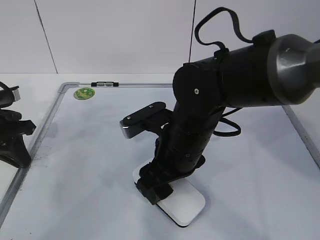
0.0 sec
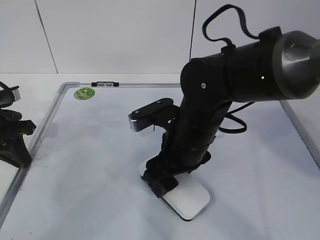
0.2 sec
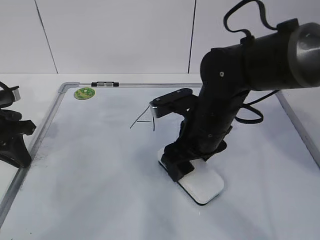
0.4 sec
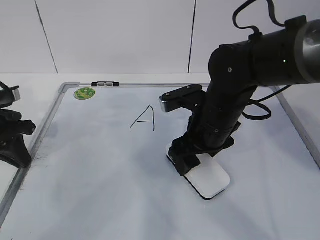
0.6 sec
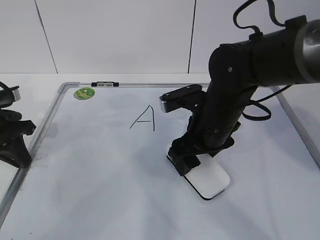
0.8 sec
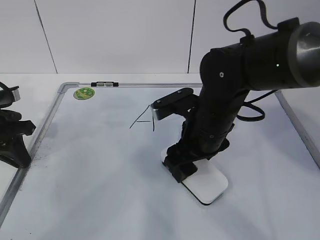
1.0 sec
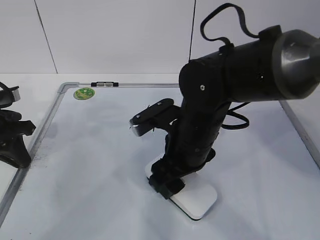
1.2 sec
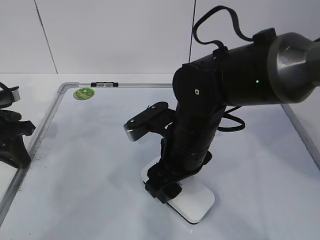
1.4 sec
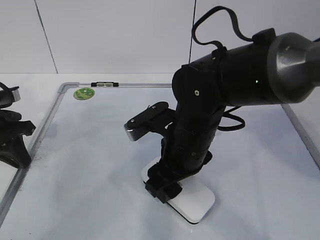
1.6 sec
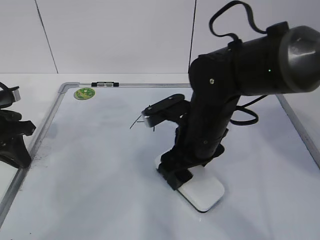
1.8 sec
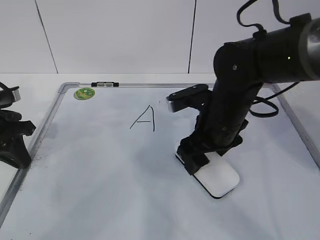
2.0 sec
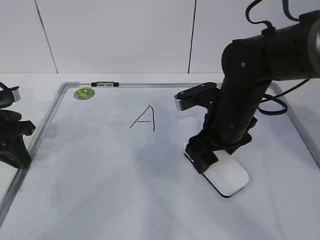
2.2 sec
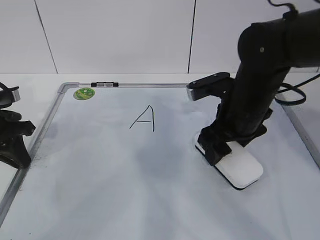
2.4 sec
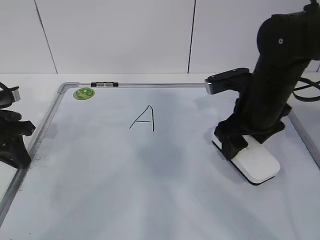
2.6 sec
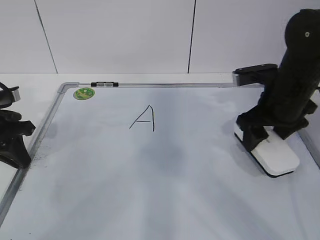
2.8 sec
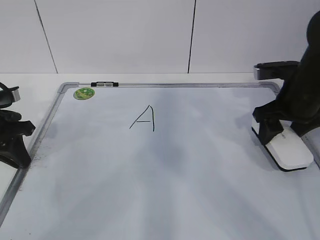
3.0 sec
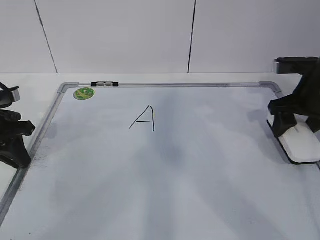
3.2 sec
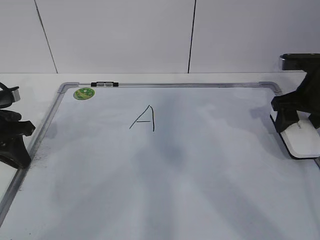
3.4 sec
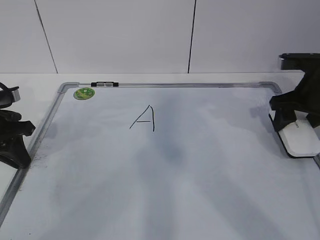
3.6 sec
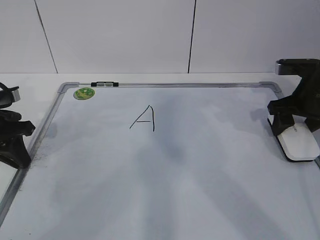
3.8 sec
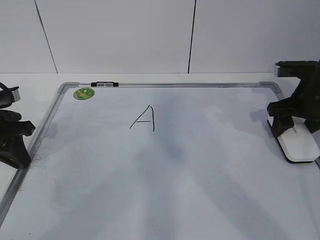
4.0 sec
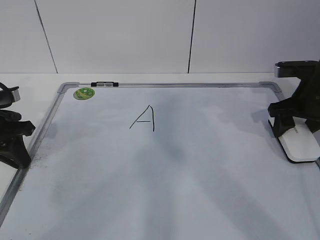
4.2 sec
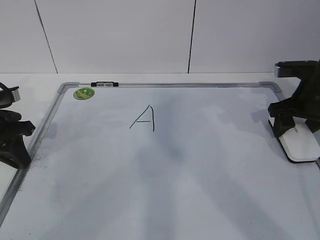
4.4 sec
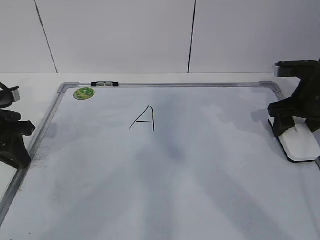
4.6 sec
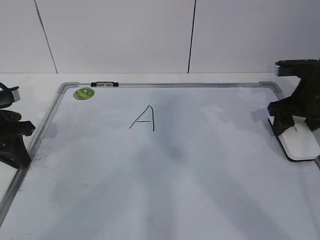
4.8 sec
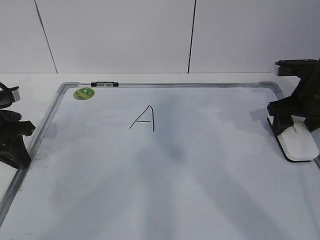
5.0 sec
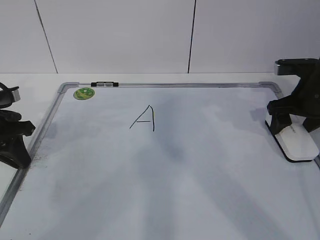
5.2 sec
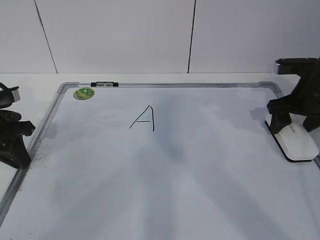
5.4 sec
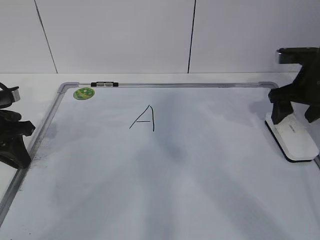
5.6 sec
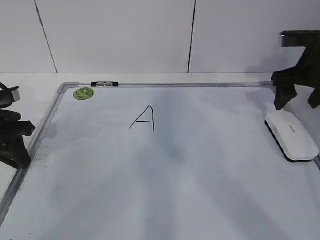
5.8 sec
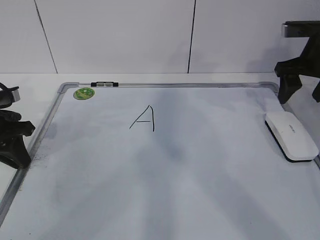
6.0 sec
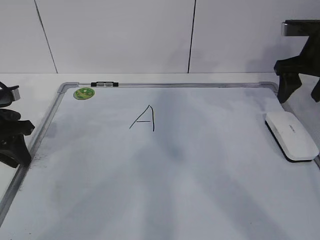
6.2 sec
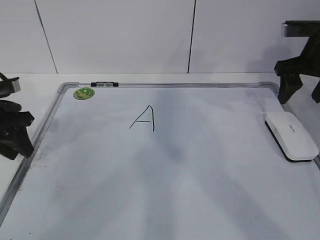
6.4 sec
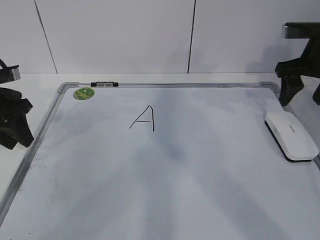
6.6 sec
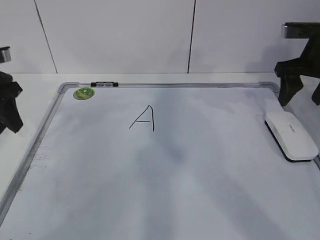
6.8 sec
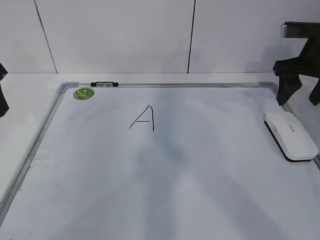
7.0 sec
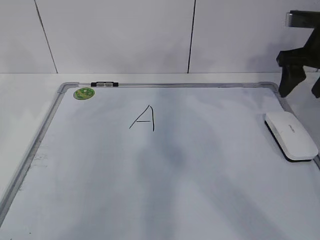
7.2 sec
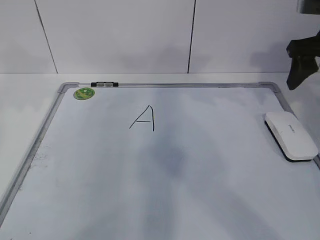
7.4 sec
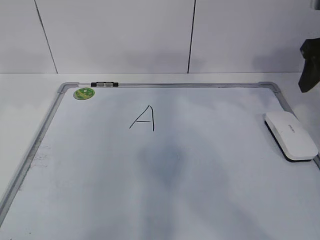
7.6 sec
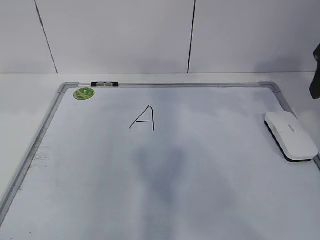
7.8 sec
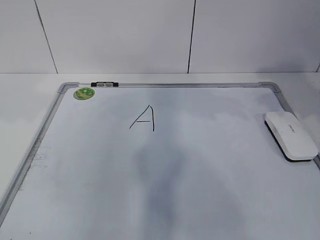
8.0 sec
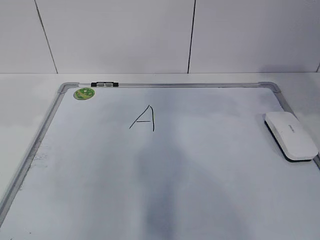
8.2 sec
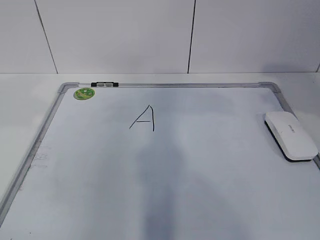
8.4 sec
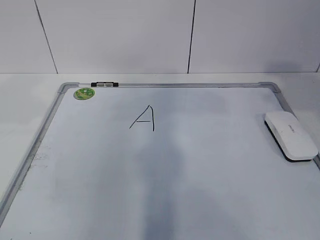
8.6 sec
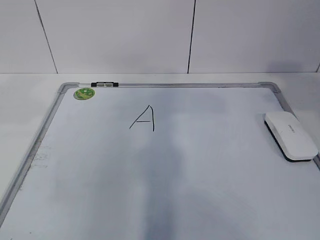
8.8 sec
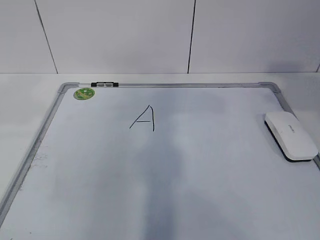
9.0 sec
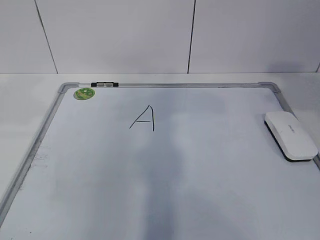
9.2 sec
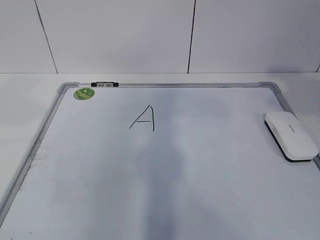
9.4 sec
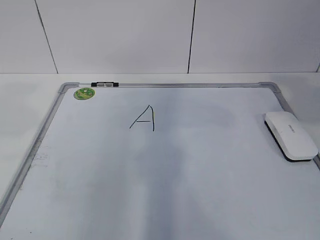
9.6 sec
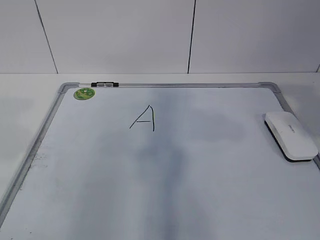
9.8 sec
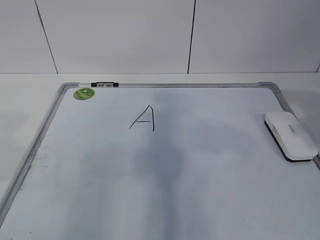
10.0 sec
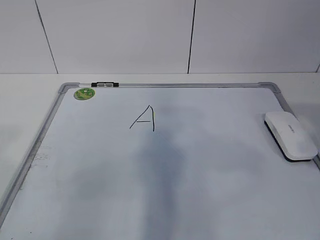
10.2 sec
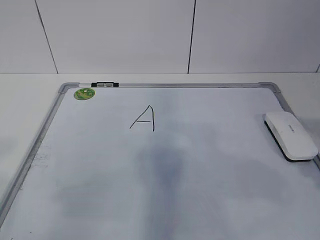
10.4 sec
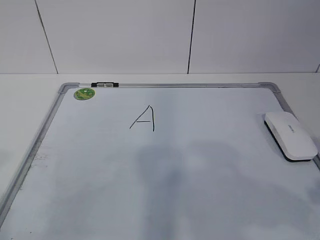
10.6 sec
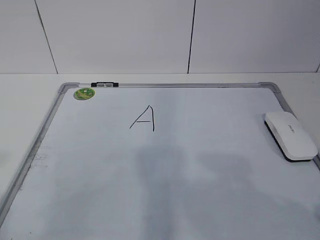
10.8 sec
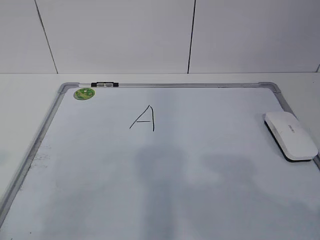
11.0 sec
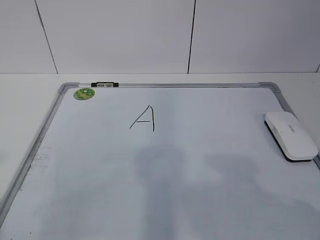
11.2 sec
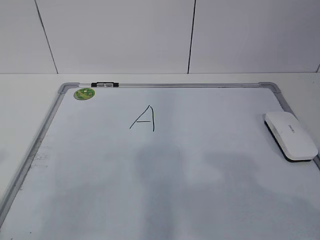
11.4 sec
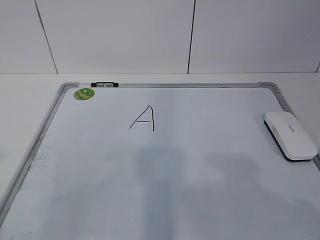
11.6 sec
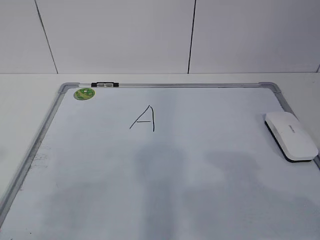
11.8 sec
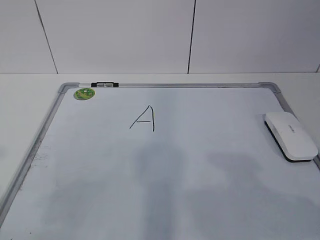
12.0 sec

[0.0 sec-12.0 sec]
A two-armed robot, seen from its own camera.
Task of the whole recording: pick up the eraser on the blackboard and erase the letter "a".
1.6 sec to 3.0 sec: The right gripper travels to the right and forward by some 20 cm.
3.0 sec to 4.4 sec: The right gripper moves some 5 cm.
4.4 sec to 6.0 sec: The right gripper heads upward, covering some 5 cm.
6.0 sec to 7.6 sec: The left gripper heads upward, covering about 20 cm, and opens up, while the right gripper travels upward and backward by some 10 cm.
7.6 sec to 9.0 sec: The right gripper shifts some 15 cm backward and upward.
9.0 sec to 10.4 sec: The right gripper goes about 15 cm backward and downward.

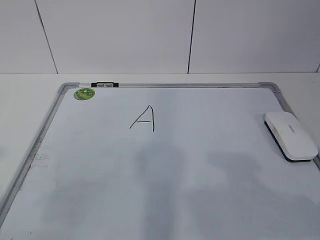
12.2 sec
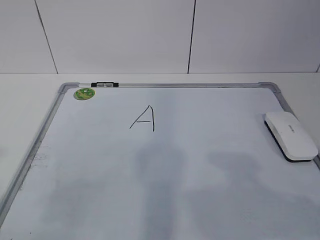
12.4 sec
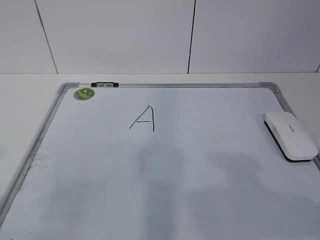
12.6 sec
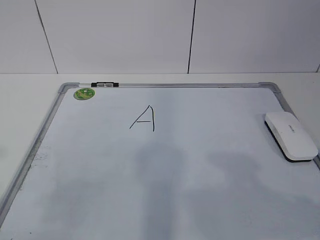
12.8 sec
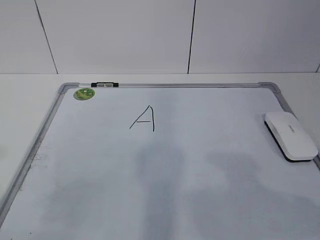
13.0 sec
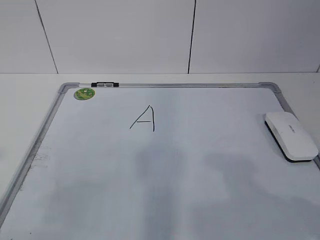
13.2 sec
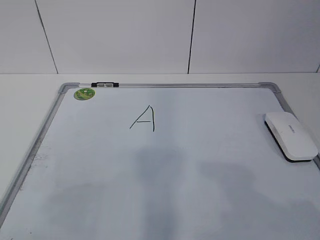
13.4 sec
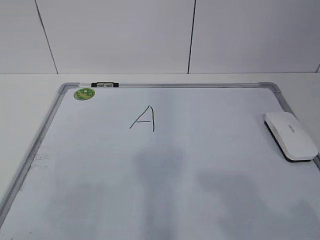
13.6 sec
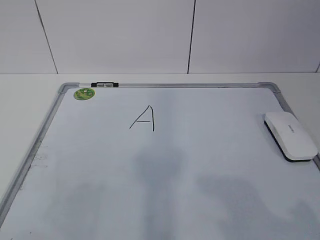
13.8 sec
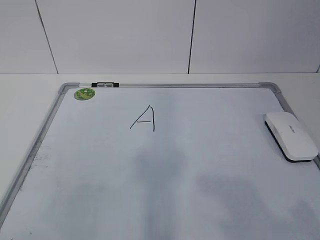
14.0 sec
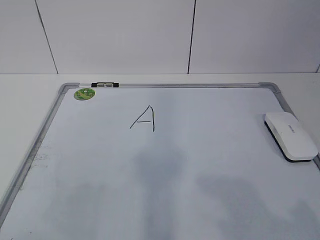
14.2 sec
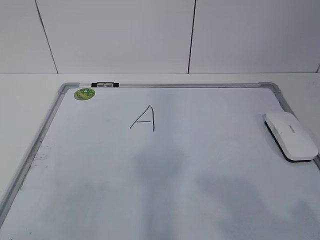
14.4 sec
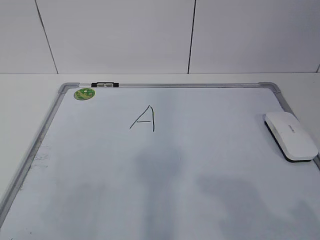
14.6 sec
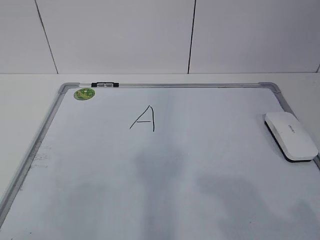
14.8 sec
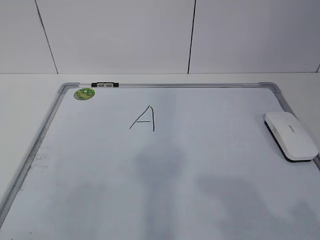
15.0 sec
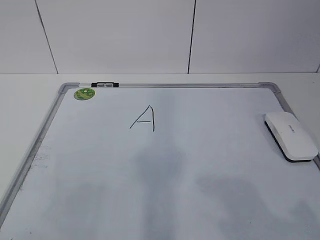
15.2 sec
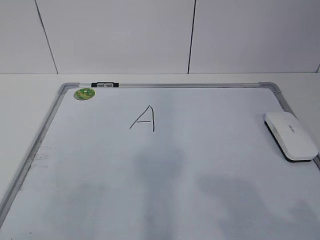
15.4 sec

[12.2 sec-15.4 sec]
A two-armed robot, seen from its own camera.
Task of the whole recording: pick up the eraser on the blackboard and erase the letter "a".
13.8 sec to 15.4 sec: Both grippers stay put.
